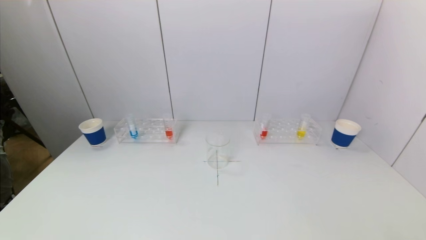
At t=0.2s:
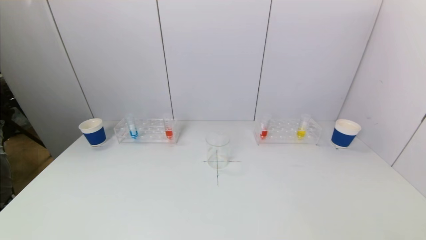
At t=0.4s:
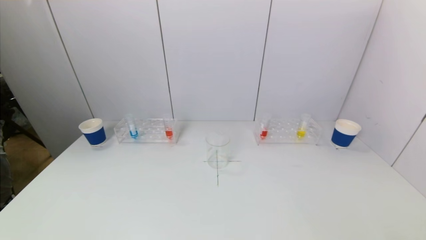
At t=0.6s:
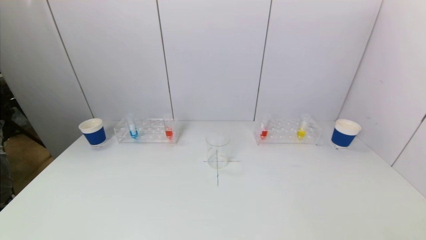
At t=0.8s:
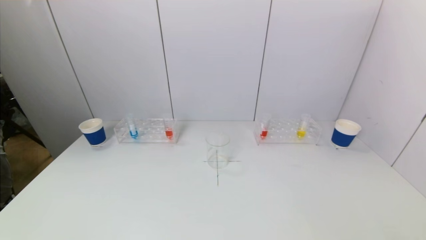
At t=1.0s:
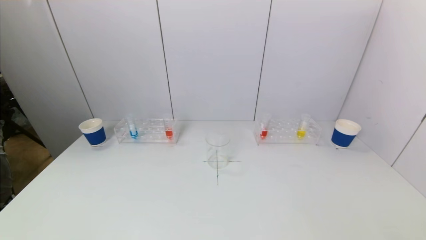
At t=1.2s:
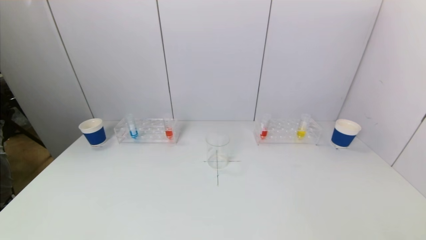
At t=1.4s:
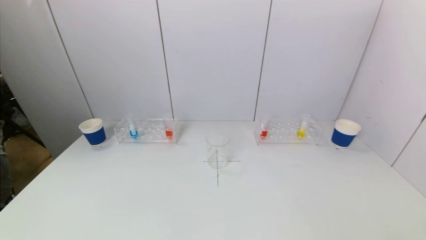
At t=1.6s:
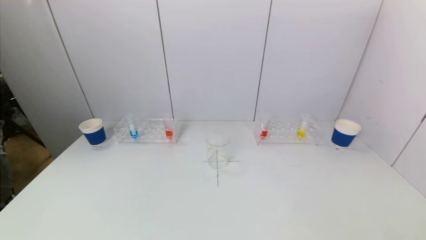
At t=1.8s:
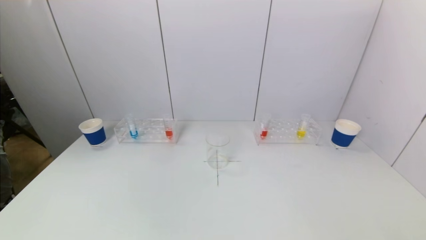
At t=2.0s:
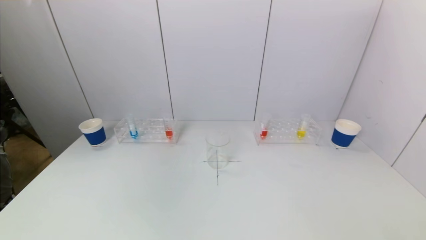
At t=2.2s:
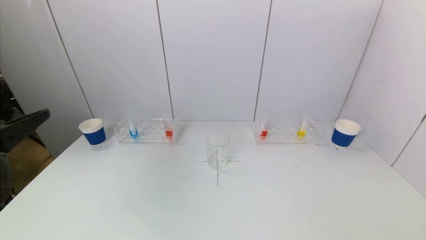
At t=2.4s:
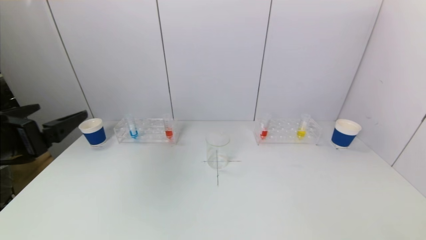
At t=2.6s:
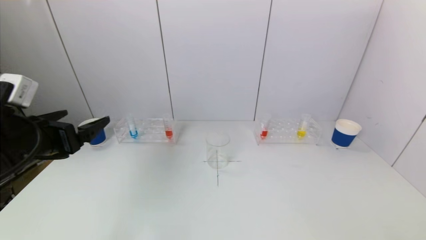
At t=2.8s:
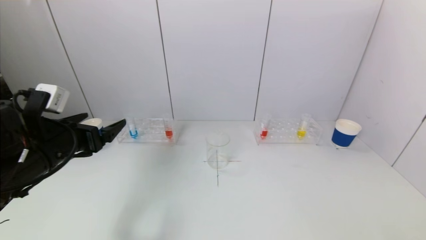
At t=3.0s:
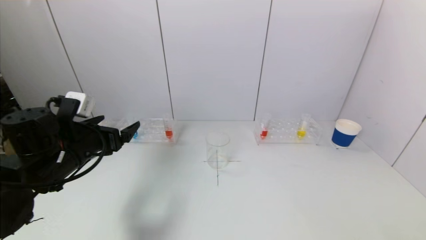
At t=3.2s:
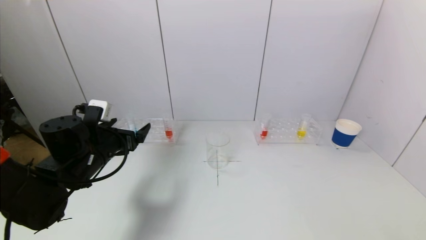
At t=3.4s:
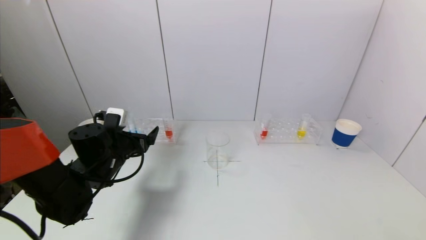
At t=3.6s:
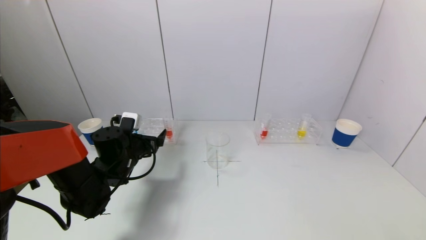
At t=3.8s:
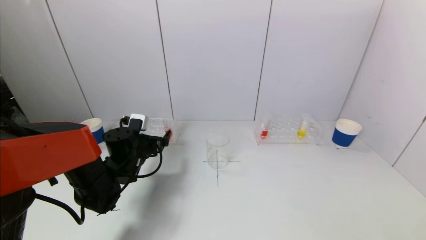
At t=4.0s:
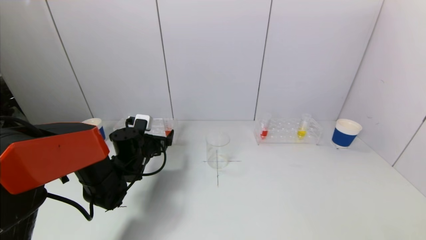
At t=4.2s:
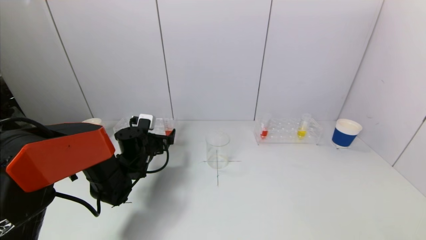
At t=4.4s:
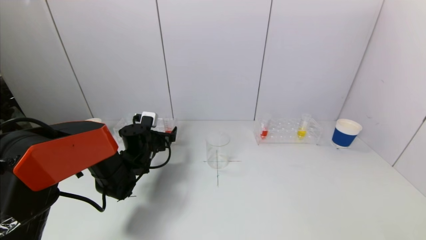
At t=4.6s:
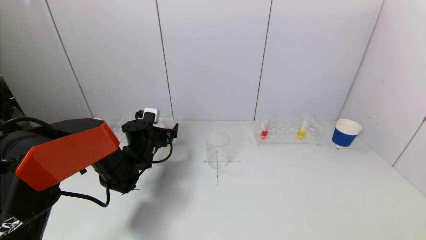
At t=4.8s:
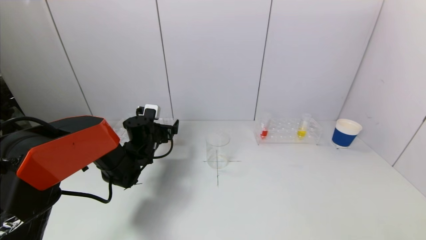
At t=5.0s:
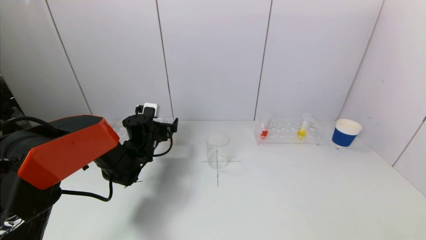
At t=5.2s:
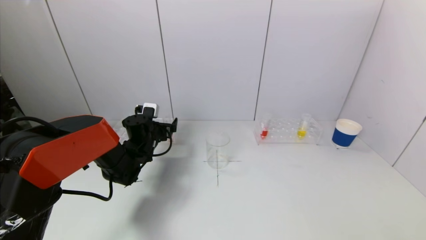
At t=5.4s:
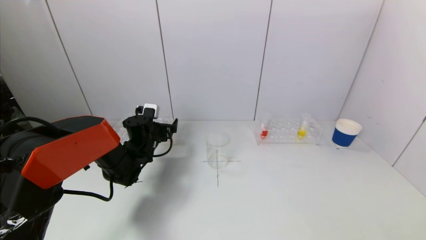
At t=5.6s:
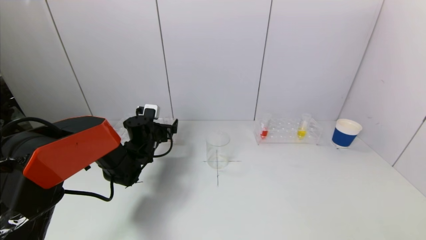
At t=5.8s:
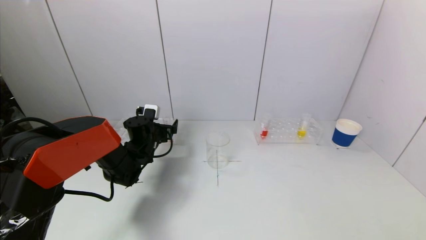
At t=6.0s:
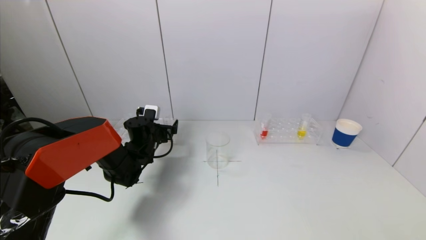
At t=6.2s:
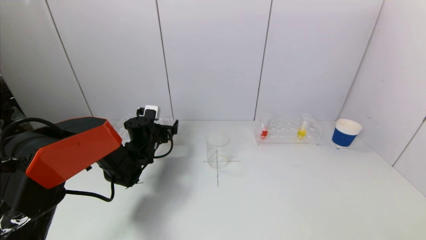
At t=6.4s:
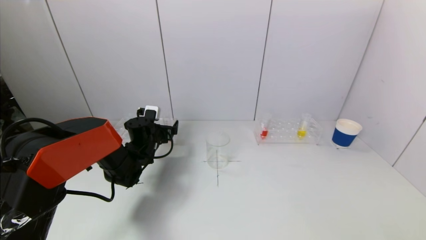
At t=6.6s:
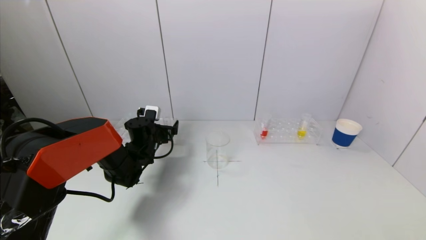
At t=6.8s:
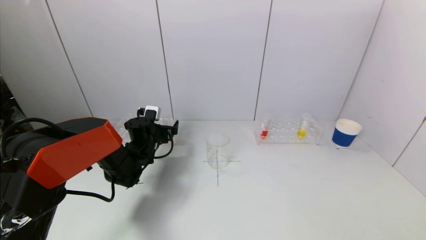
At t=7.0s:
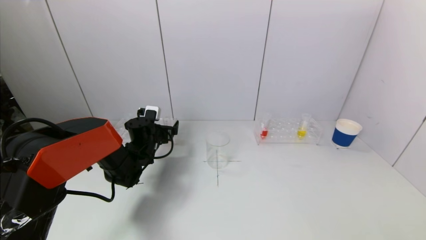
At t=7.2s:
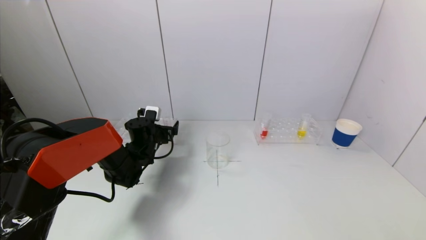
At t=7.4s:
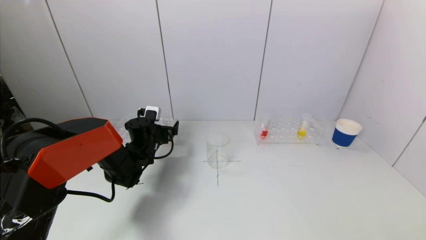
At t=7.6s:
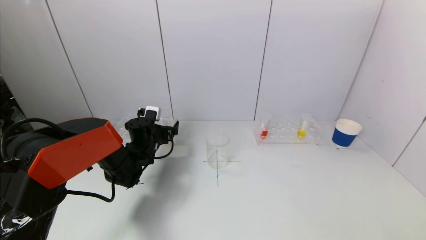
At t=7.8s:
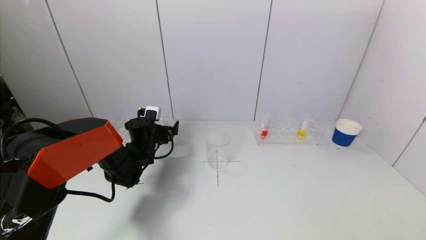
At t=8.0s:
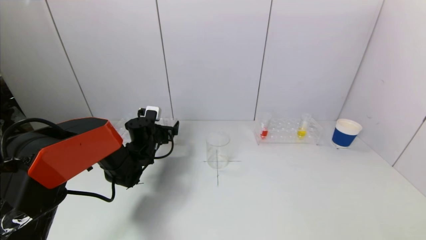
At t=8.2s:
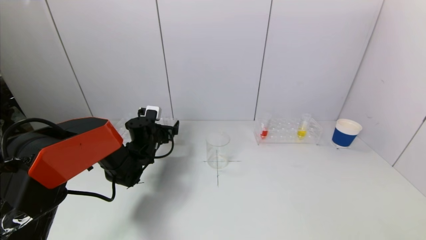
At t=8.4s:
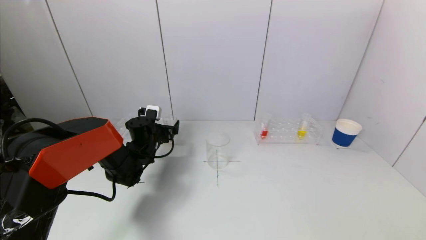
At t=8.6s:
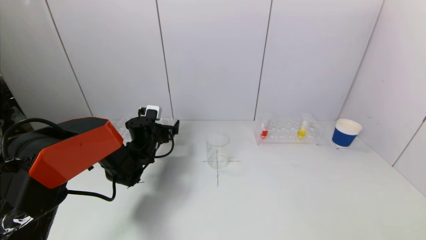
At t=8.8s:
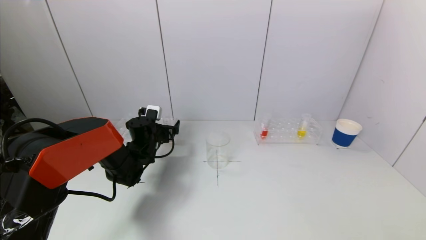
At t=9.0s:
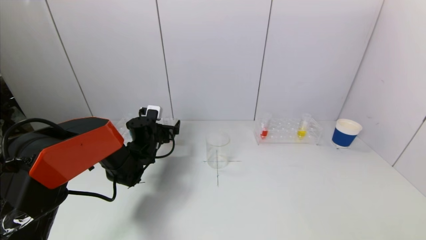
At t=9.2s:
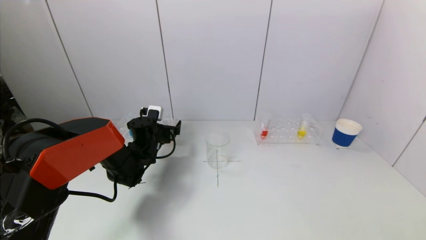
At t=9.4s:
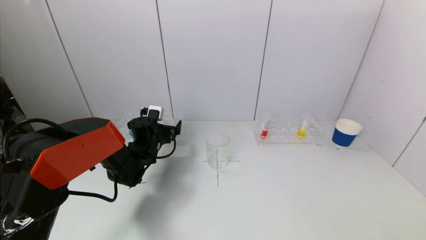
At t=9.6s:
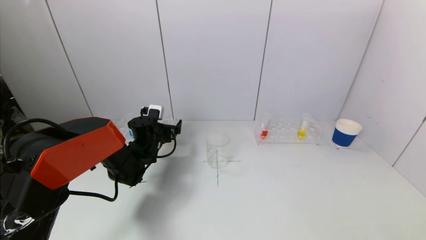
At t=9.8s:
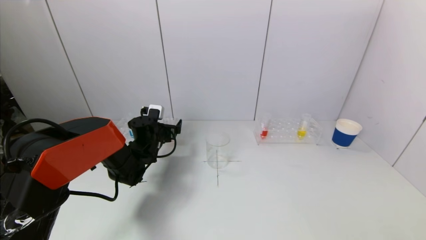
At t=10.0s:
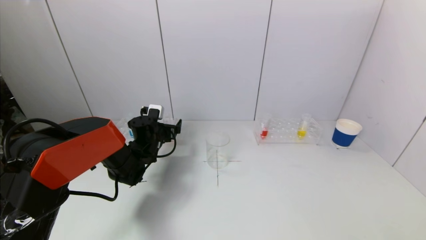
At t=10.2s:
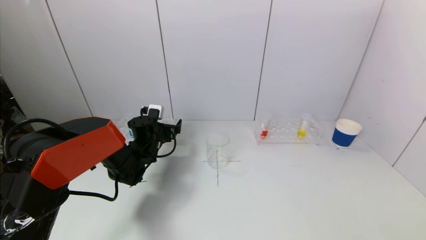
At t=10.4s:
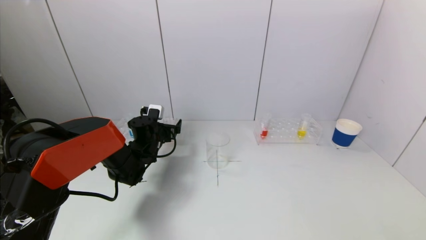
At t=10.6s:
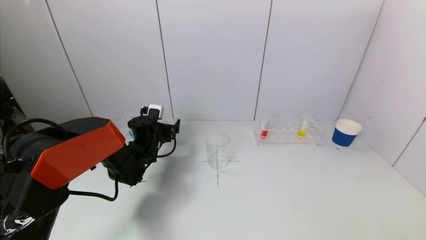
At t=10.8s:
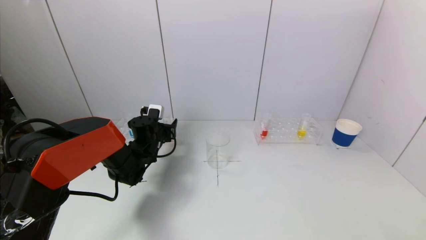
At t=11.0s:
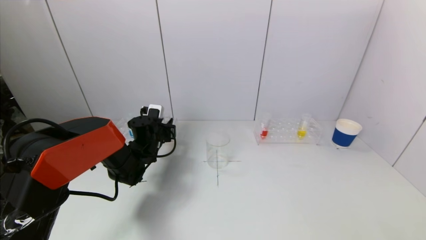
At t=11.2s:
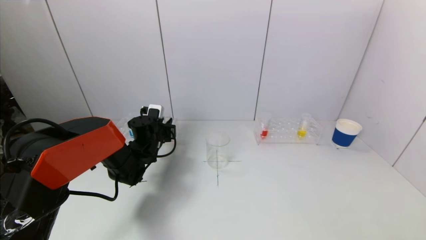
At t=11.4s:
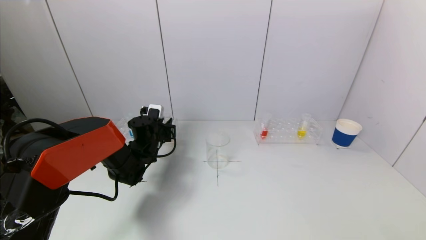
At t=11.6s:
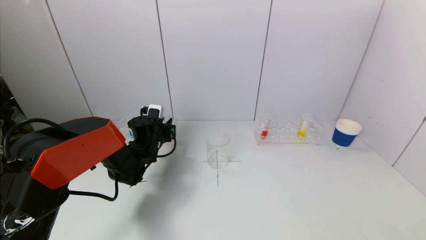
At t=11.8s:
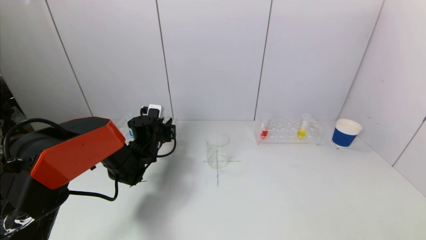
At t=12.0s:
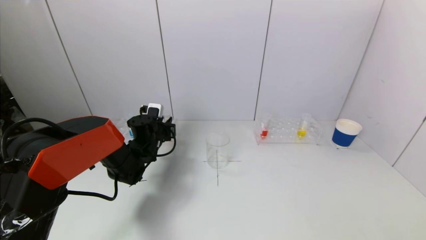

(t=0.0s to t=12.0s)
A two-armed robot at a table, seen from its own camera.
Task of the whole recording: pick up a test tube with pigment on left test tube rack and a test tube with pigment on right test tube rack by grippers and pour them into the beaker.
Step, t=0.0s - t=11.6s: Grasp the red reagent with the left gripper.
t=1.6s - t=3.0s: The left gripper heads forward, covering some 30 cm.
t=3.0s - t=4.4s: The left gripper goes about 20 cm forward, downward and to the right.
t=4.4s - t=6.0s: There are only small adjustments of the grippers.
t=6.0s - t=10.4s: Both grippers stay about where they are.
t=10.4s - t=12.0s: The left gripper closes up.

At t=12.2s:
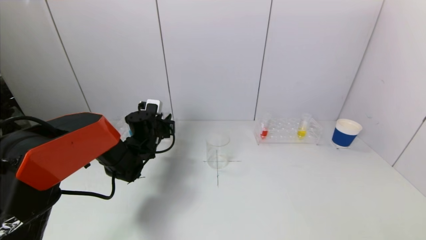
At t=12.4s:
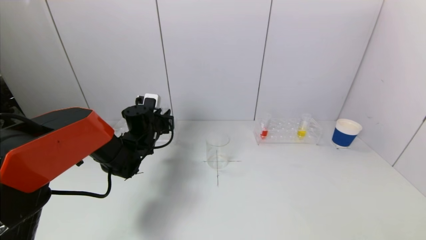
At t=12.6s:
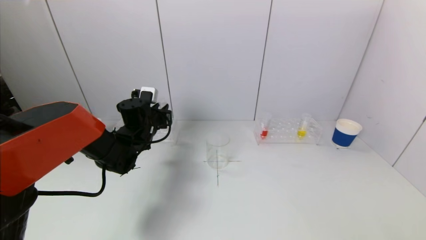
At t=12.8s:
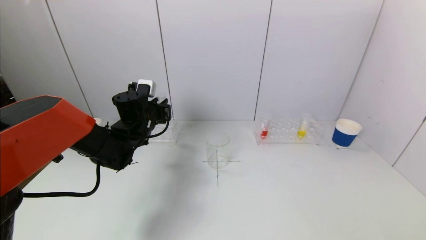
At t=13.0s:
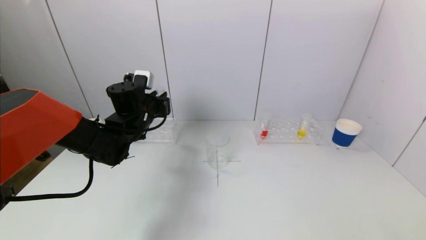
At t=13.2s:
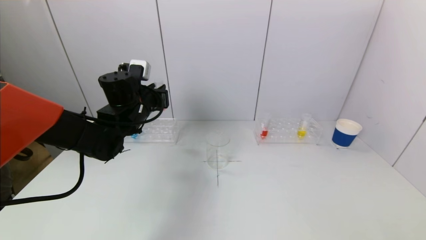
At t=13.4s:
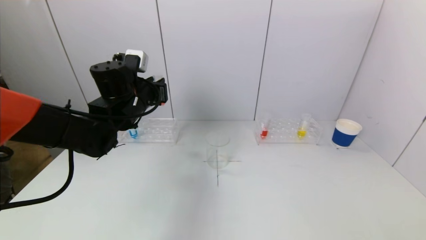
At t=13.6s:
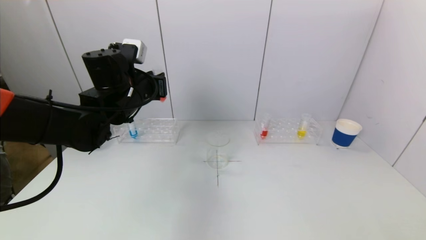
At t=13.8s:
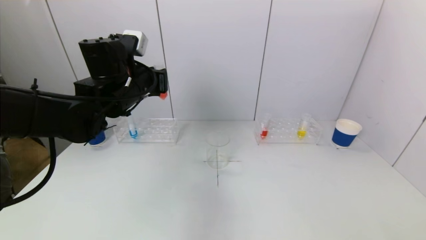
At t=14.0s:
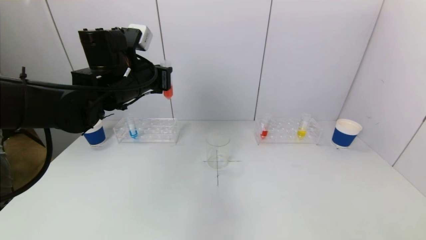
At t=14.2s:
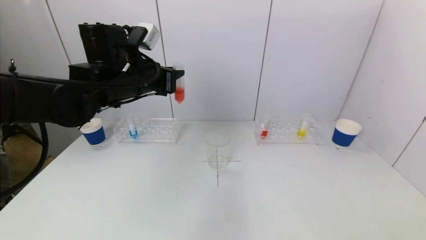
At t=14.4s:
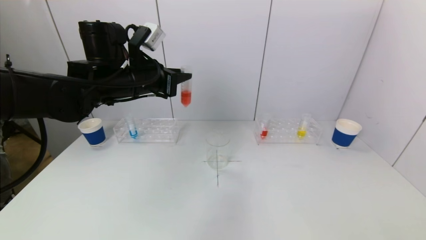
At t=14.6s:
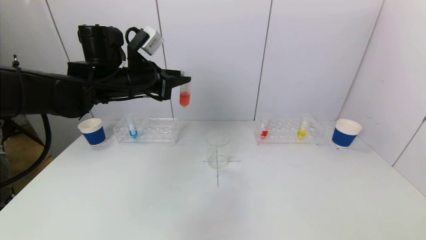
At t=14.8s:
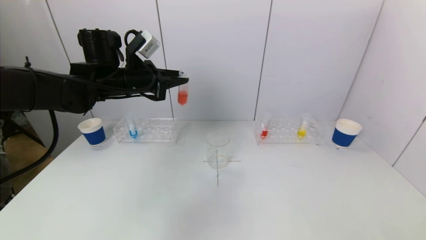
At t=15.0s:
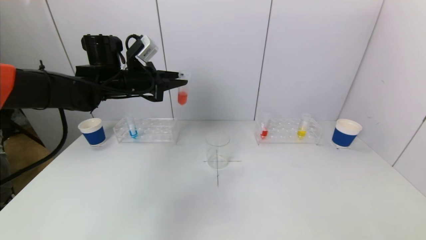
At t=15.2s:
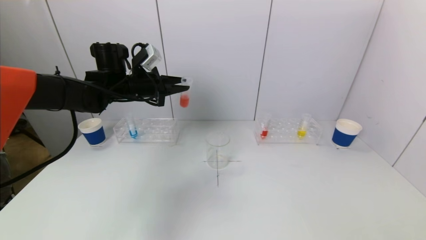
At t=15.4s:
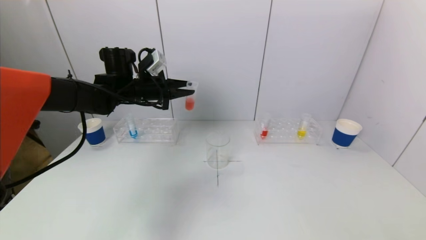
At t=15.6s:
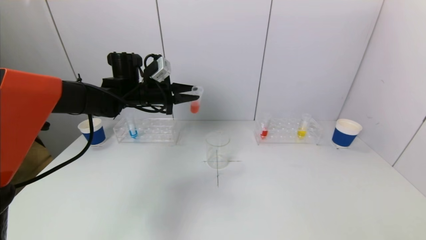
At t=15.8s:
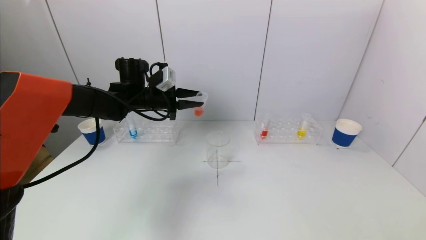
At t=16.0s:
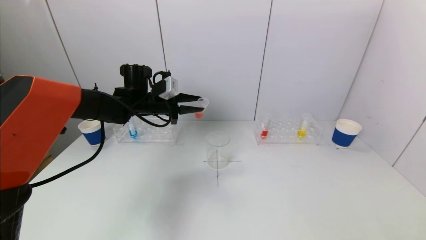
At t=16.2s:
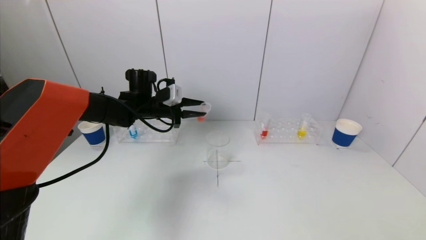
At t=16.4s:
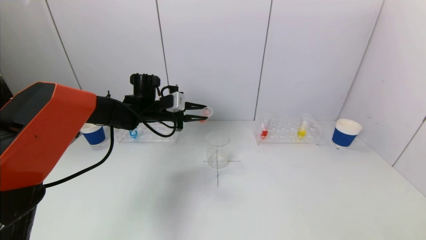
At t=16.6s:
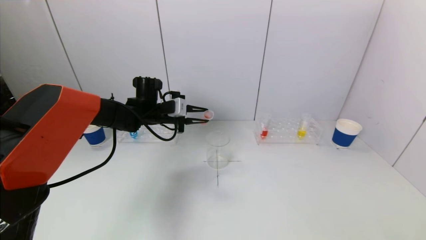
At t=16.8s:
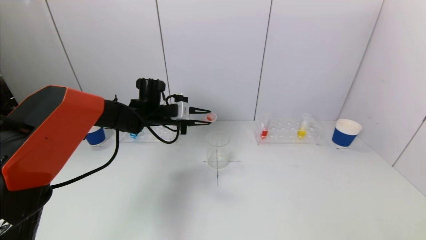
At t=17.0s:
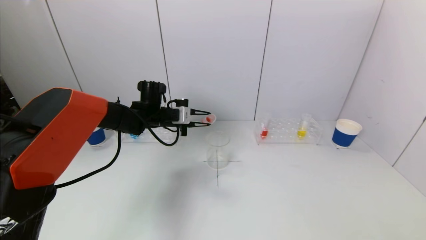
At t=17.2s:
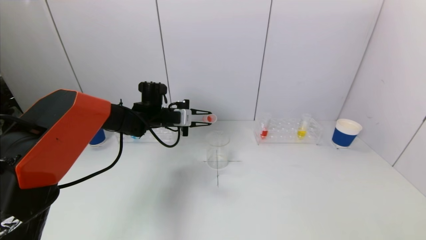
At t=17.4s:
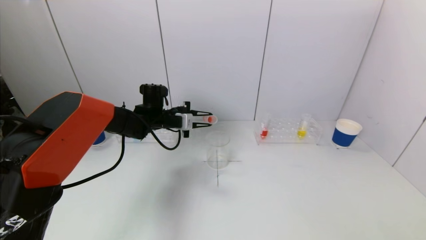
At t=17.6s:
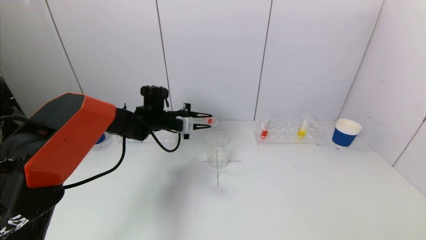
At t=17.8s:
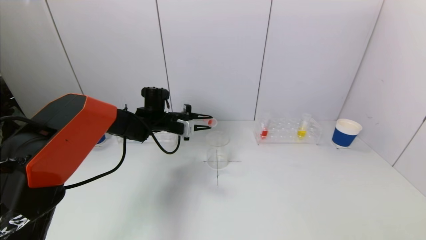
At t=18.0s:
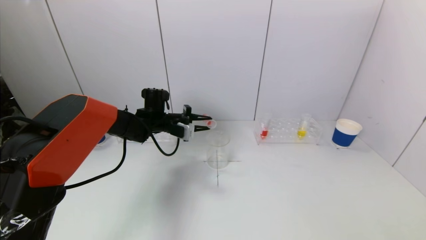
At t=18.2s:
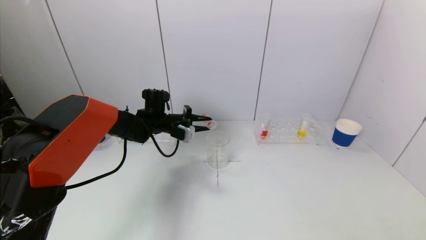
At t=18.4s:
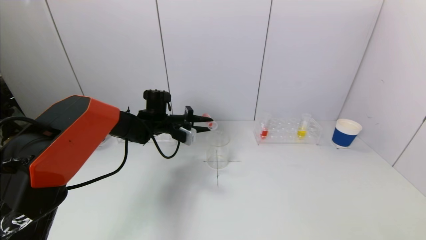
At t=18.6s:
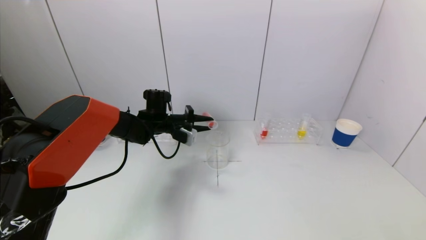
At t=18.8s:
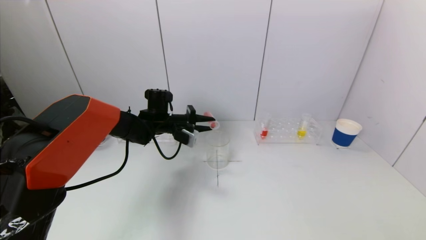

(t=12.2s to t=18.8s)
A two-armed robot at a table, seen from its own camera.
Task of the whole recording: pick up a test tube with pigment on left test tube rack and a test tube with pigment on right test tube rack by grippers and pour them into the beaker.
t=12.2s - t=13.8s: The left gripper moves upward and backward, roughly 20 cm.
t=13.8s - t=15.4s: The left gripper is displaced forward by roughly 10 cm.
t=15.4s - t=17.2s: The left gripper is displaced downward by about 10 cm.
